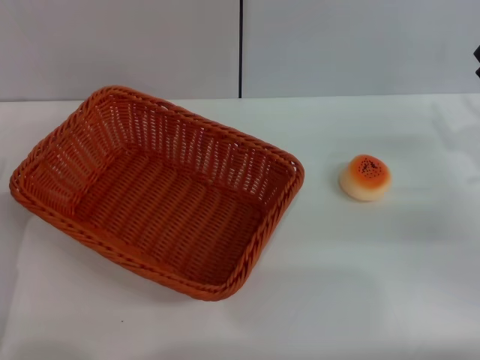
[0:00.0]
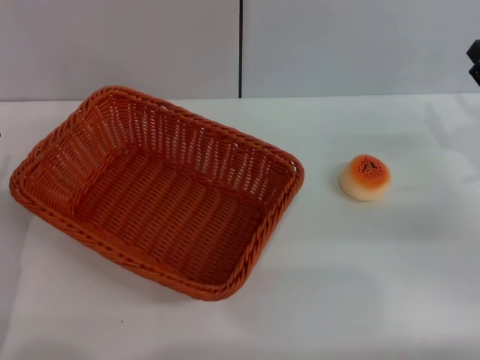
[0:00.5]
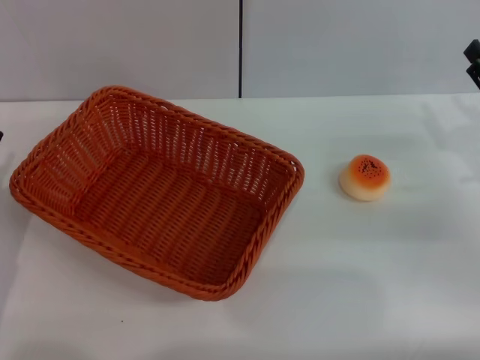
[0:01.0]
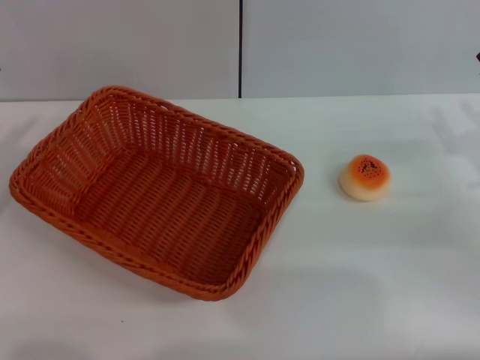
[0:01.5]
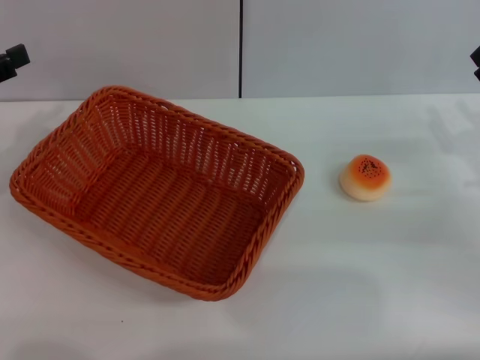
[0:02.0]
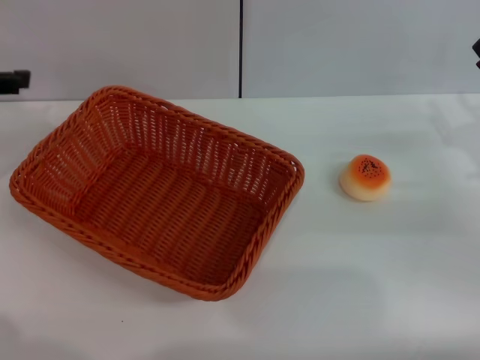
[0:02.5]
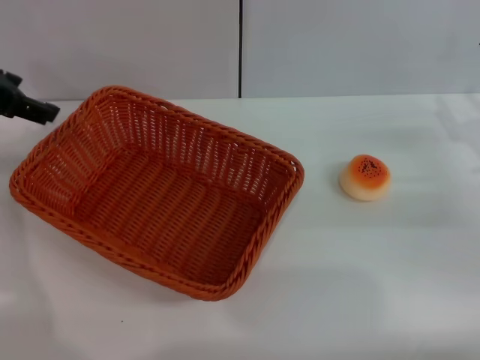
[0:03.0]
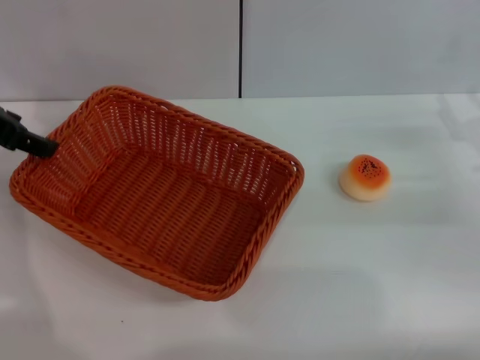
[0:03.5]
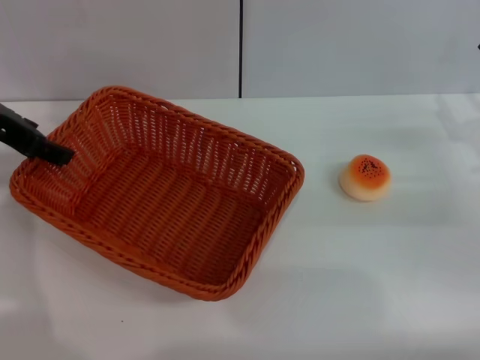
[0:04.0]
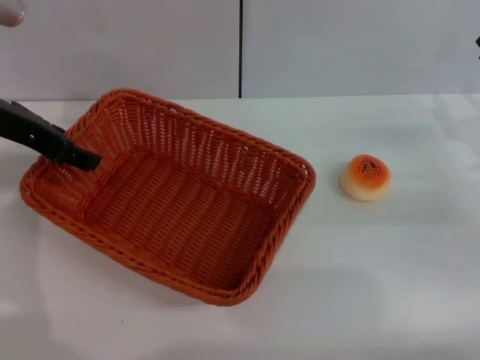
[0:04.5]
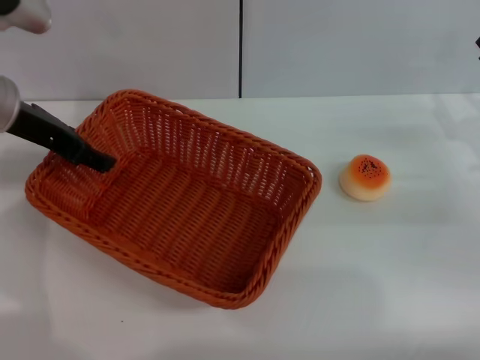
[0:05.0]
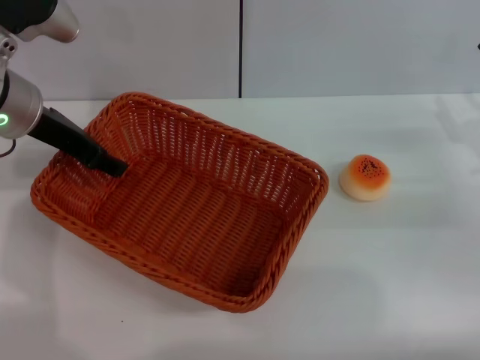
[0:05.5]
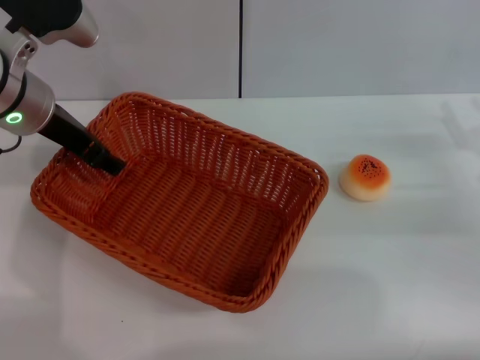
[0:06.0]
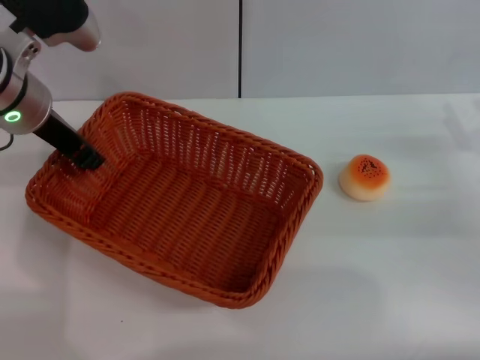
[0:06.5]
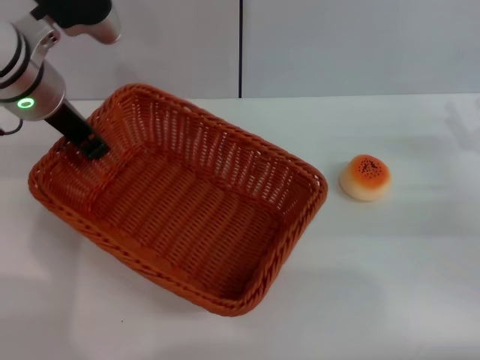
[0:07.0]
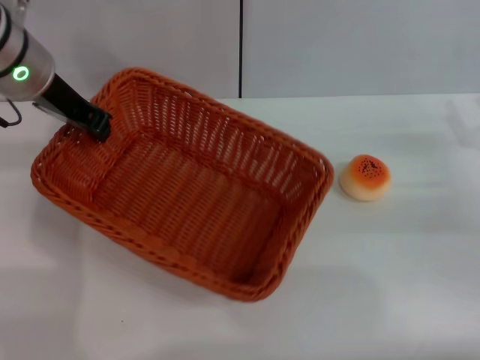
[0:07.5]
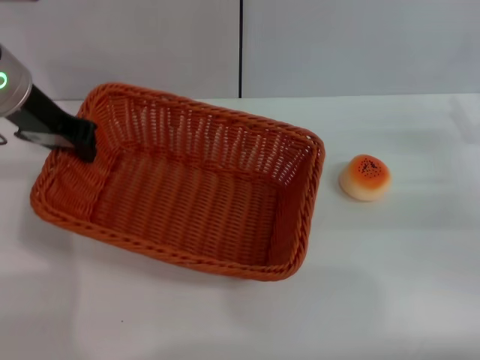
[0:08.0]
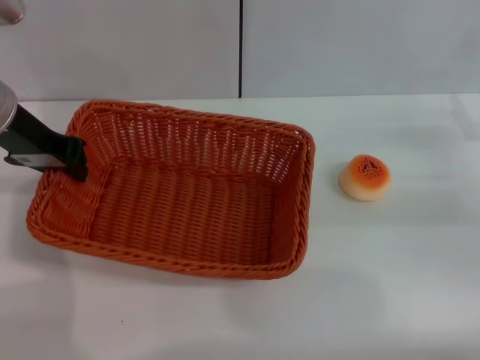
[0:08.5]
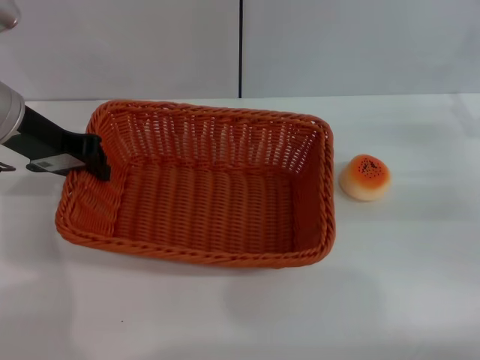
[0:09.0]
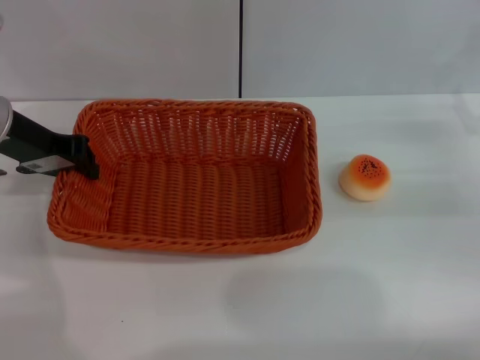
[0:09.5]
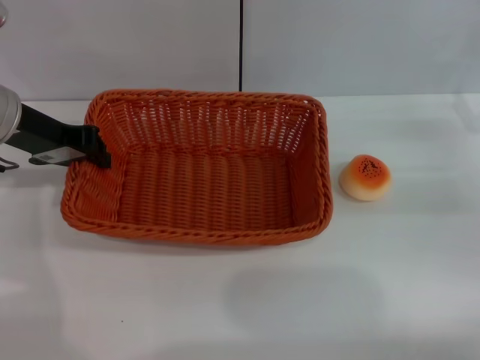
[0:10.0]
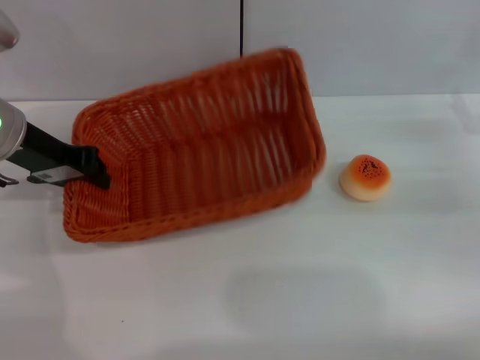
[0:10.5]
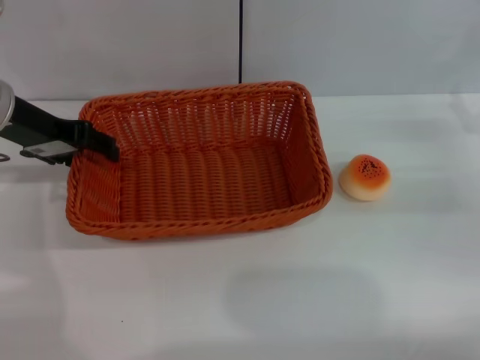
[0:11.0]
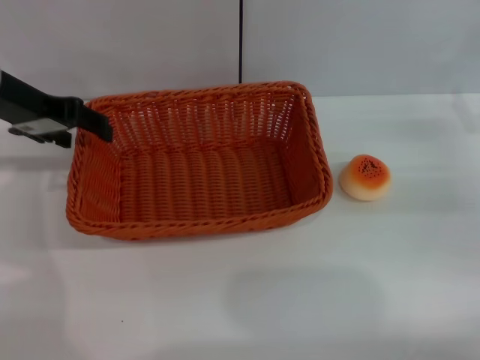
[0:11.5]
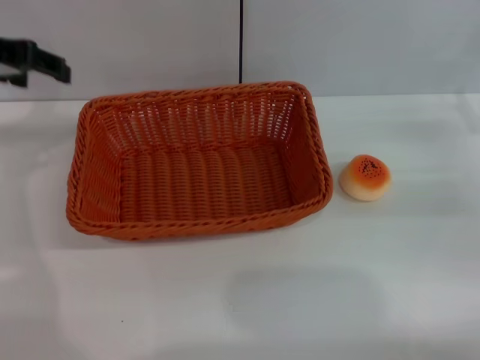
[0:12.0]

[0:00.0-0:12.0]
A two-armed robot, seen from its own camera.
Step, 0:00.0 to 0:11.5: Move the basket to the center of view with the left gripper.
0:00.0 to 0:02.0: The left gripper heads upward, forward and to the left, covering approximately 20 cm.
0:02.0 to 0:04.0: The left gripper heads to the right and forward, covering about 10 cm.
0:04.0 to 0:06.0: The left gripper is displaced to the right by about 5 cm.
0:06.0 to 0:08.0: The left gripper closes.
0:08.0 to 0:10.0: There are only small adjustments of the grippers.
0:10.0 to 0:12.0: The left gripper moves upward, about 10 cm, and opens up.

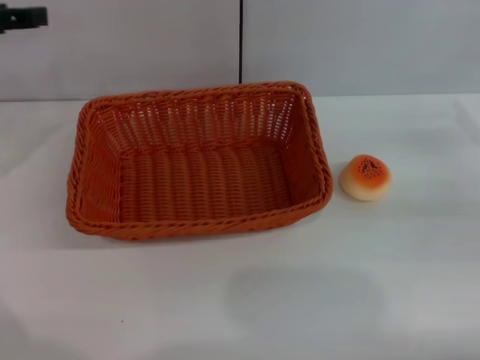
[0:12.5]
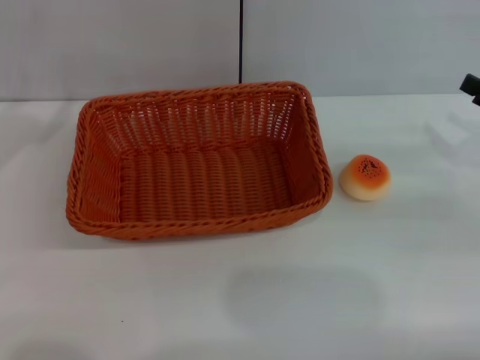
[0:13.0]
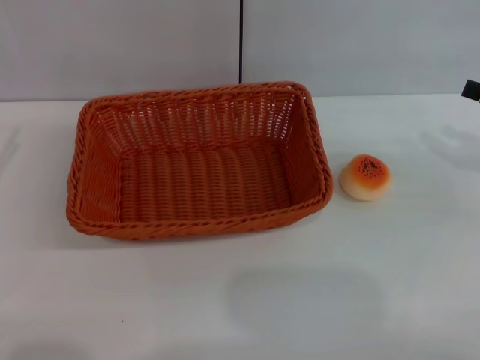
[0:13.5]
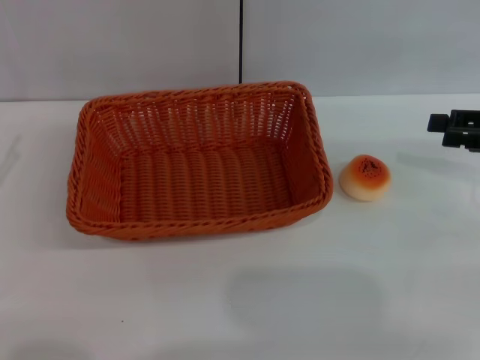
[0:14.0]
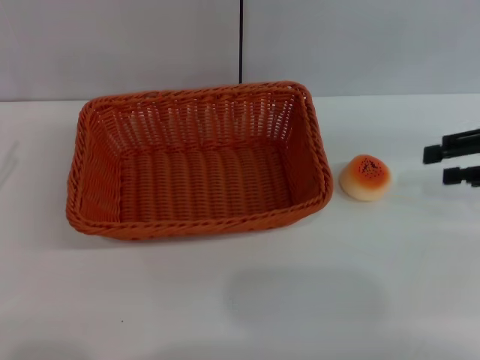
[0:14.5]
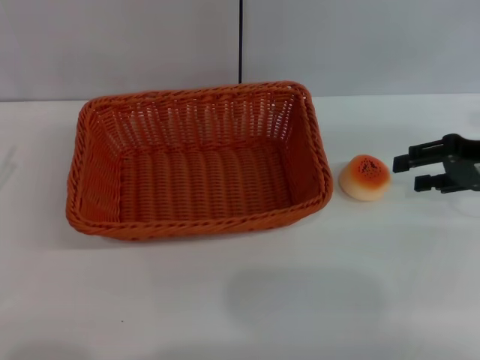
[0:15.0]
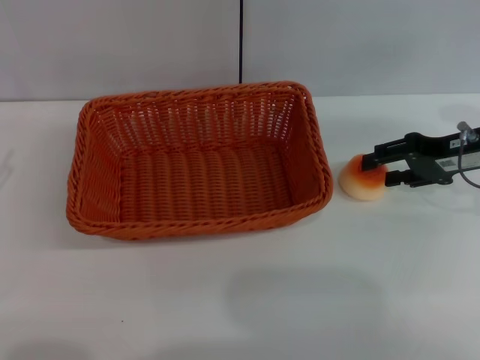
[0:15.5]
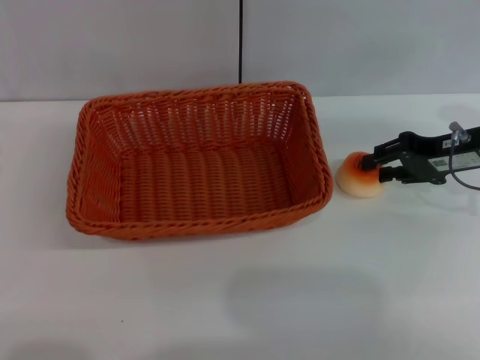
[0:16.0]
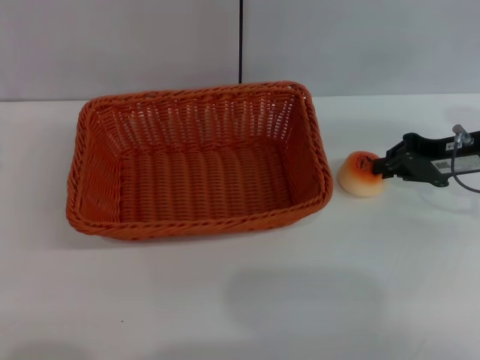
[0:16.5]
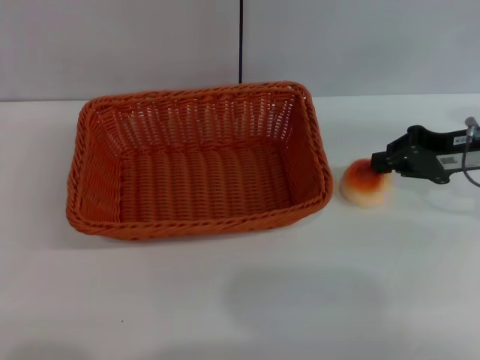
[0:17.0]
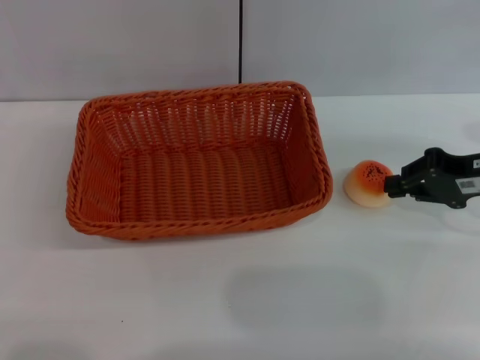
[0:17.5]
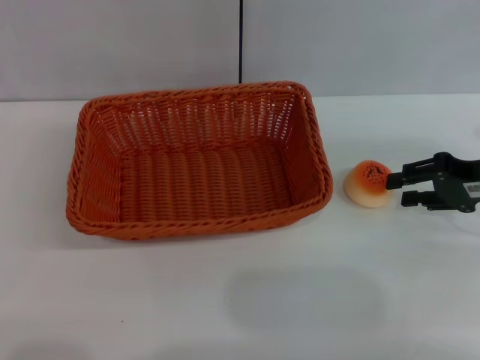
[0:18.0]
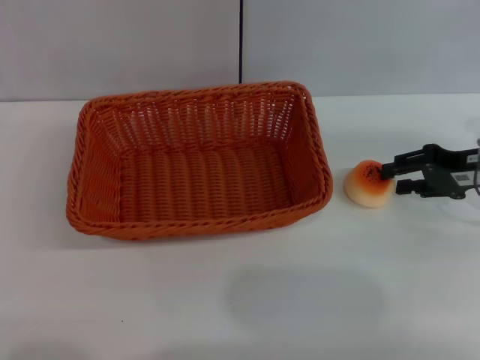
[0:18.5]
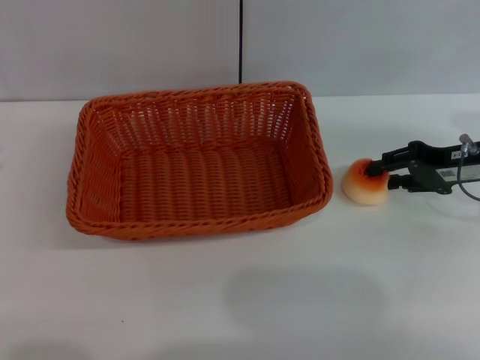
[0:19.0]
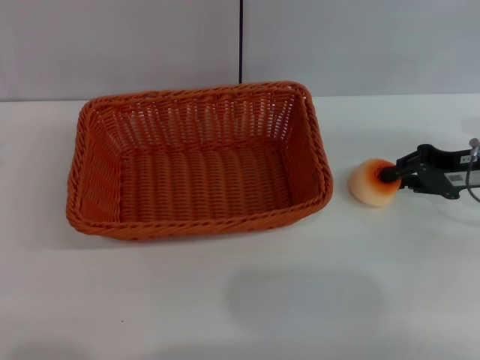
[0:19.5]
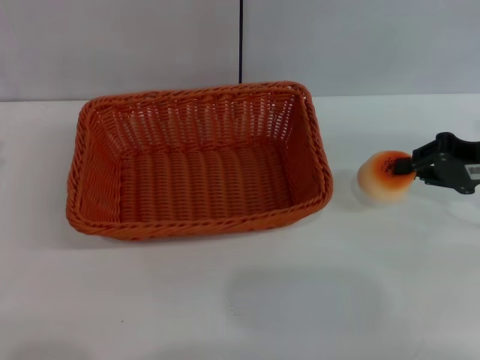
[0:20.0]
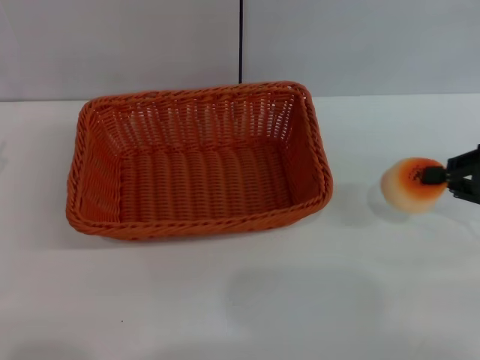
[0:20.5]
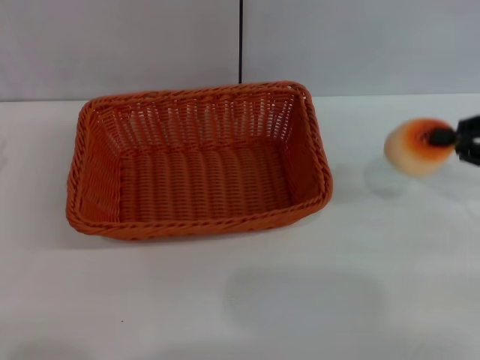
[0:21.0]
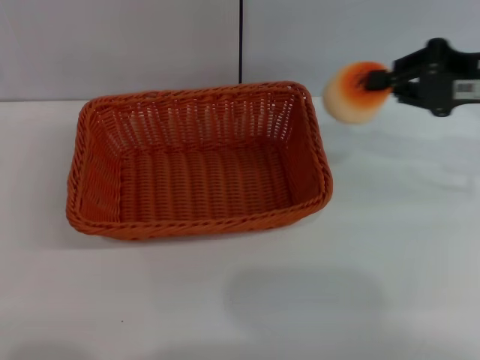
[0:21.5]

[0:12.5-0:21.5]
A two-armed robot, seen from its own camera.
Step, 0:12.5 to 0:20.0: Pick up the egg yolk pastry with the right gripper.
0:12.5 to 0:14.5: The right gripper moves upward, approximately 5 cm. Meanwhile the left gripper shifts approximately 20 cm downward, backward and to the left.
0:14.5 to 0:17.0: The right gripper heads to the left, covering about 5 cm, and closes its fingers.
0:17.0 to 0:19.5: The grippers make only small movements.
0:19.5 to 0:21.5: The right gripper travels upward by about 10 cm.

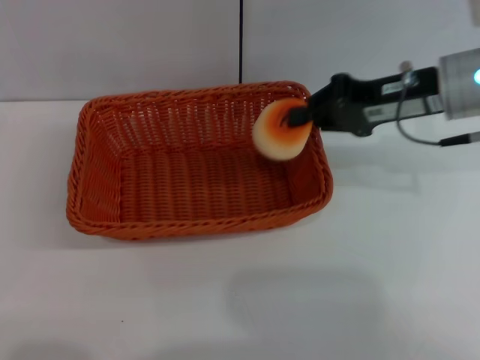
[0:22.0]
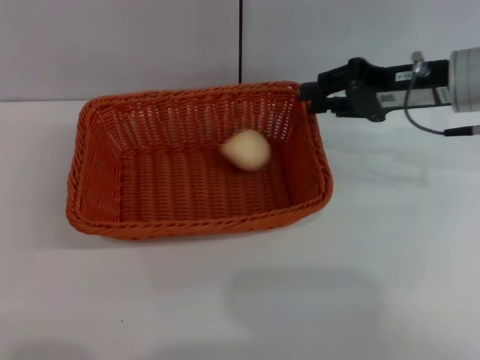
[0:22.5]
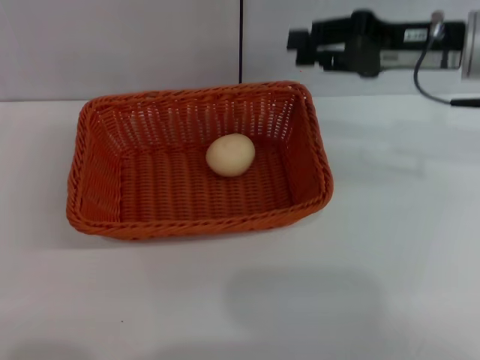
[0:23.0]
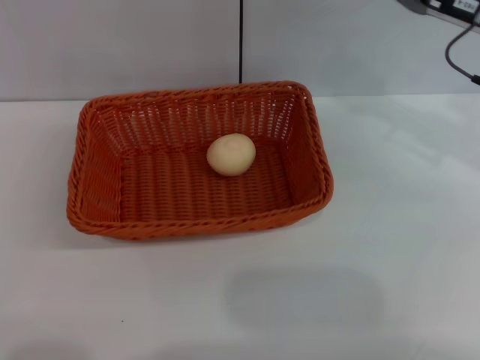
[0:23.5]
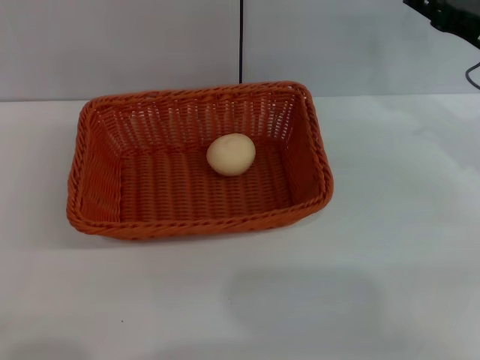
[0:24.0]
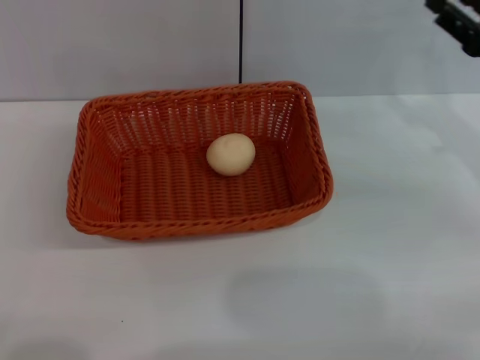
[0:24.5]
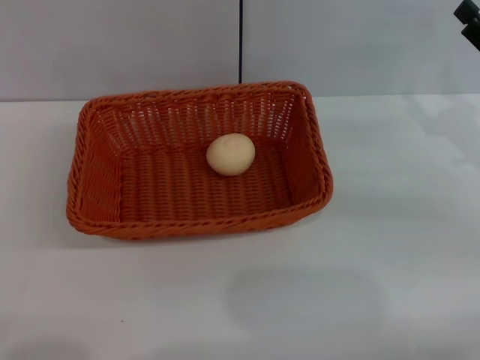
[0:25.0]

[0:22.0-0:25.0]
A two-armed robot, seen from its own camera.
0:22.0 to 0:23.5: The right gripper opens its fingers.
0:23.5 to 0:25.0: The right gripper heads downward, to the right and backward, covering approximately 10 cm, and opens up.
